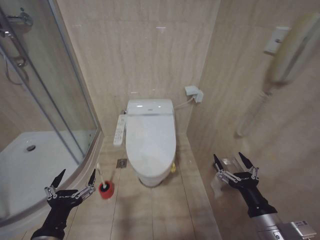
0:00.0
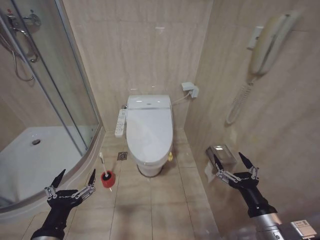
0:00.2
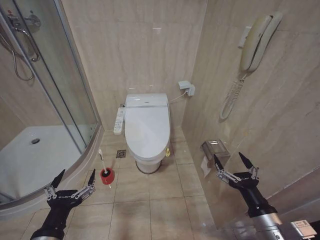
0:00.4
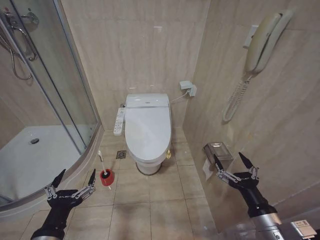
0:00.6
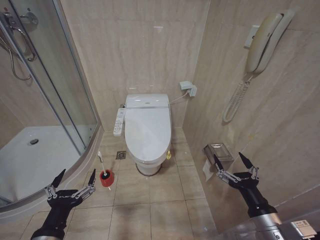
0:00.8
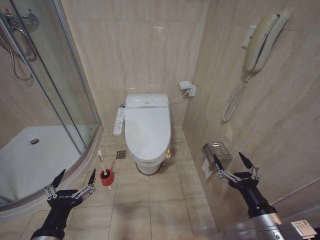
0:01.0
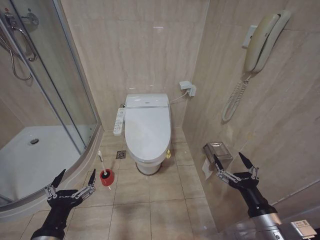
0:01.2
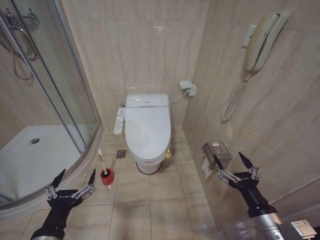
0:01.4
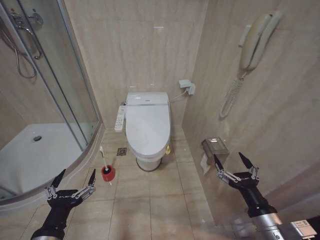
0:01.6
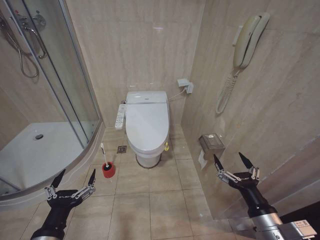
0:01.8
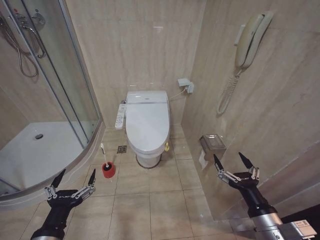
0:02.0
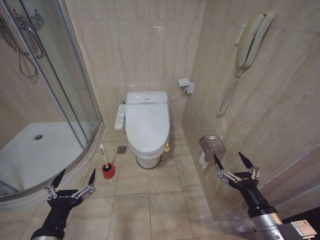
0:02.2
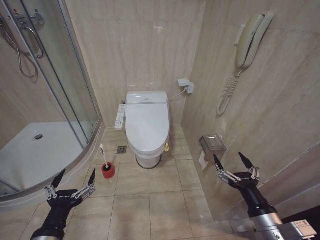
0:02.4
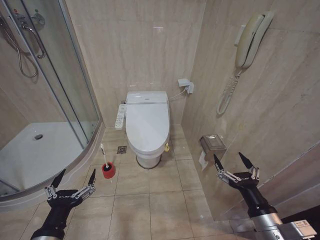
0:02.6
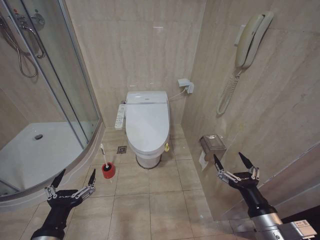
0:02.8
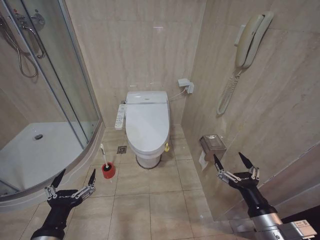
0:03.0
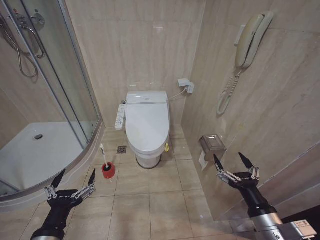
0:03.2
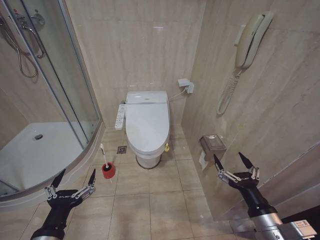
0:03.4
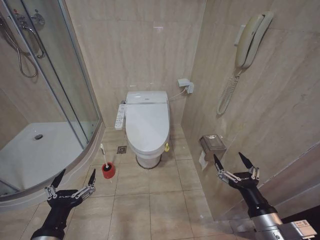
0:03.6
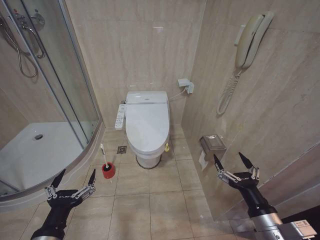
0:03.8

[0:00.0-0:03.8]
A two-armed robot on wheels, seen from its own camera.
Task of the whole recording: Open the toilet lid, clean the toilet bowl with a toilet brush, close the toilet lid, and flush.
0:00.0 to 0:03.8: The two grippers keep their place.

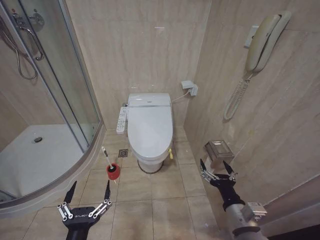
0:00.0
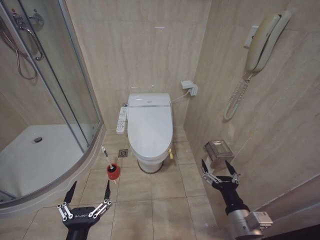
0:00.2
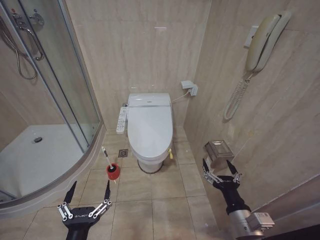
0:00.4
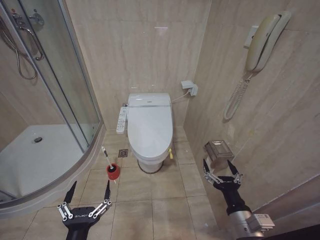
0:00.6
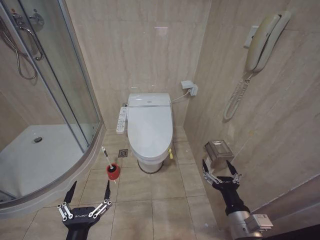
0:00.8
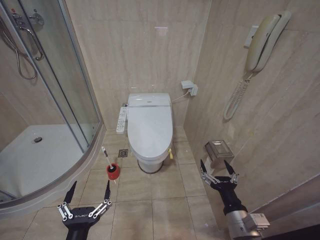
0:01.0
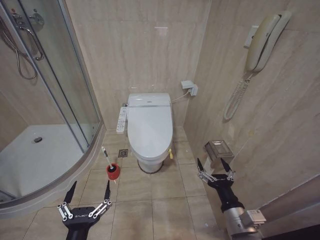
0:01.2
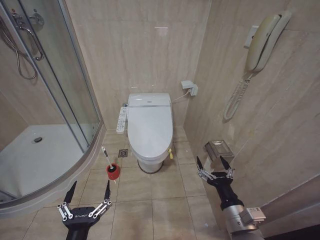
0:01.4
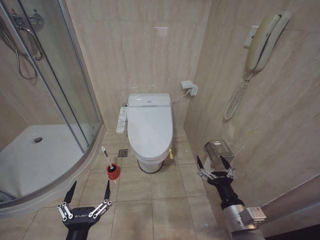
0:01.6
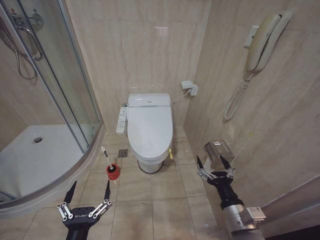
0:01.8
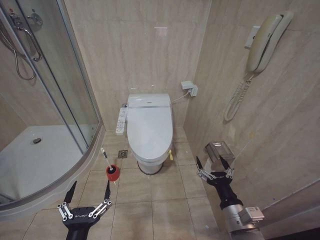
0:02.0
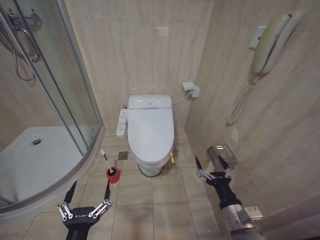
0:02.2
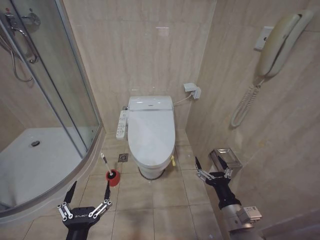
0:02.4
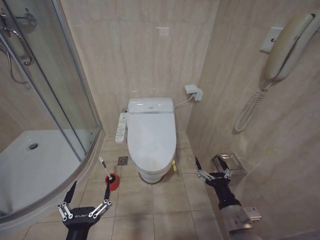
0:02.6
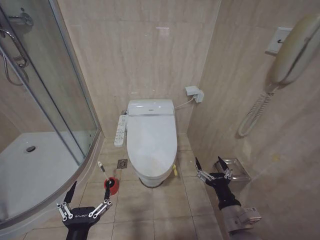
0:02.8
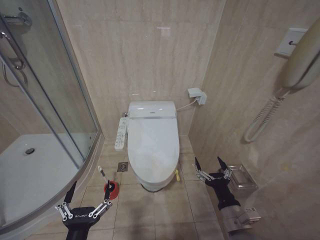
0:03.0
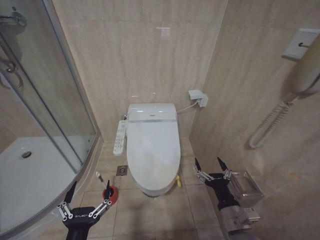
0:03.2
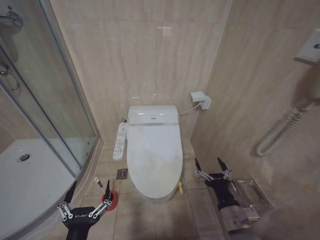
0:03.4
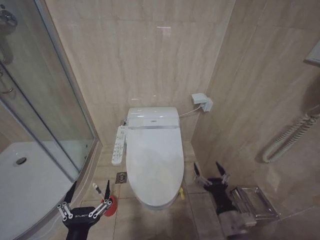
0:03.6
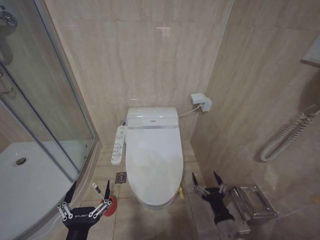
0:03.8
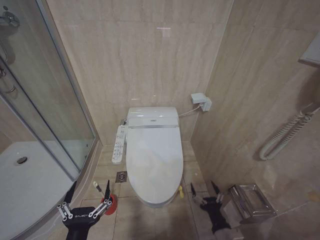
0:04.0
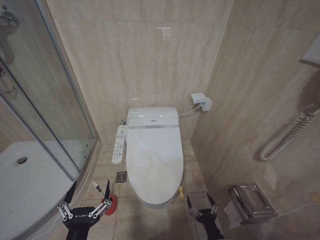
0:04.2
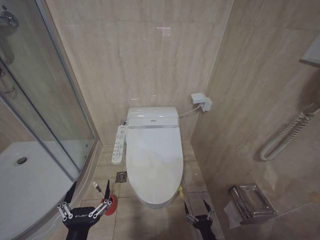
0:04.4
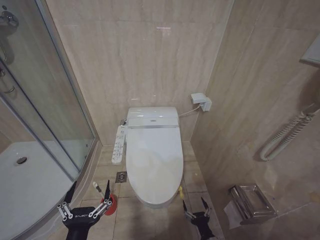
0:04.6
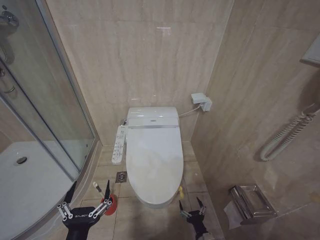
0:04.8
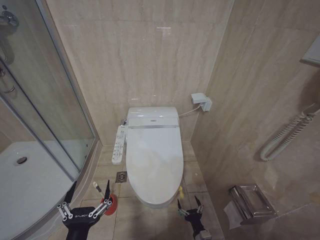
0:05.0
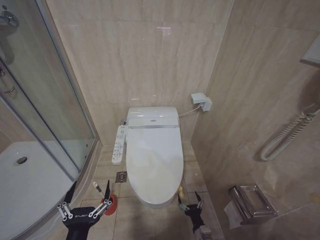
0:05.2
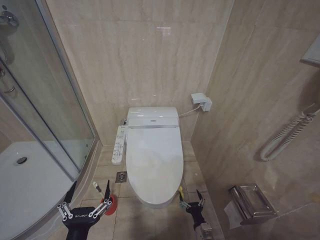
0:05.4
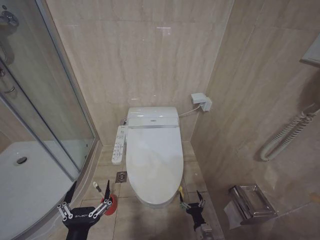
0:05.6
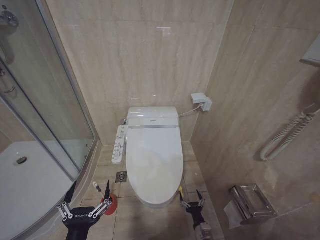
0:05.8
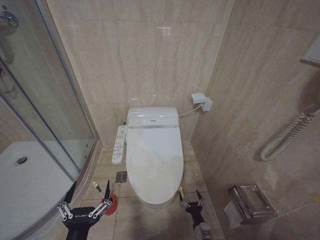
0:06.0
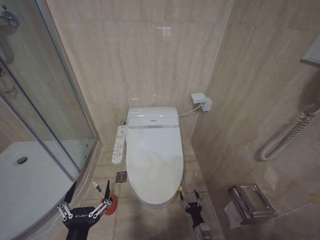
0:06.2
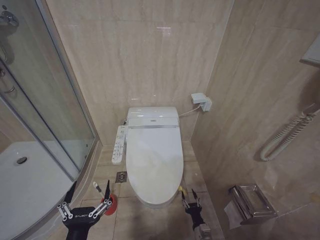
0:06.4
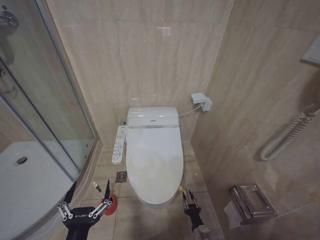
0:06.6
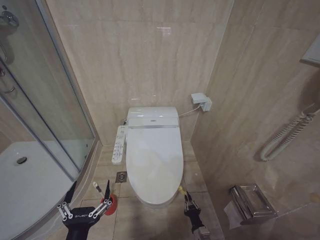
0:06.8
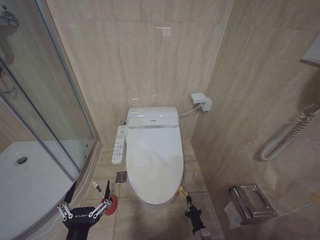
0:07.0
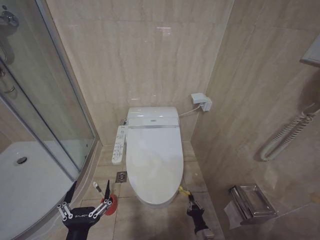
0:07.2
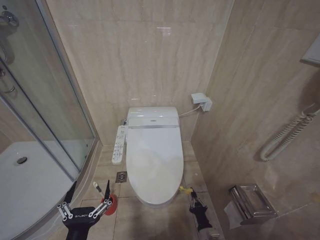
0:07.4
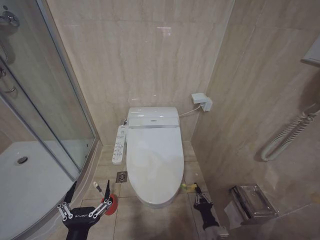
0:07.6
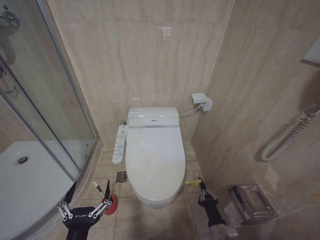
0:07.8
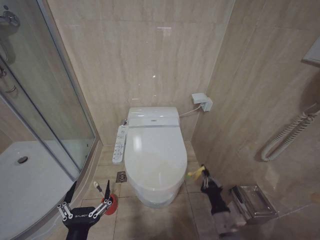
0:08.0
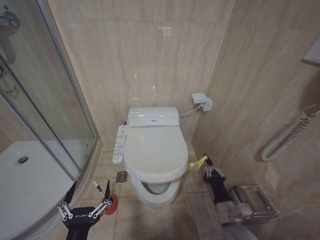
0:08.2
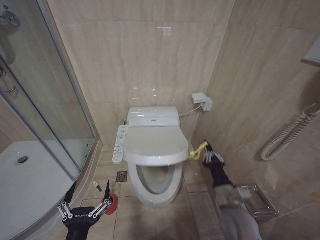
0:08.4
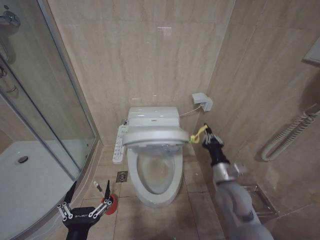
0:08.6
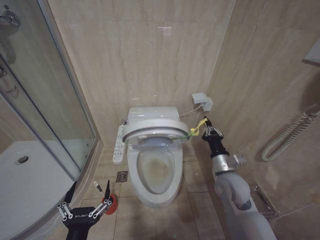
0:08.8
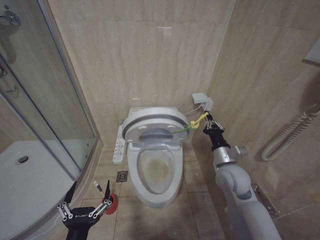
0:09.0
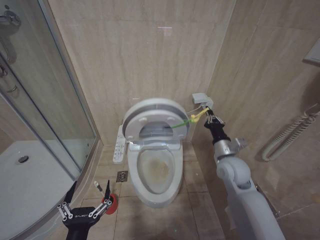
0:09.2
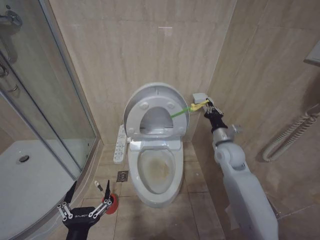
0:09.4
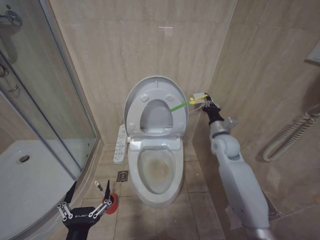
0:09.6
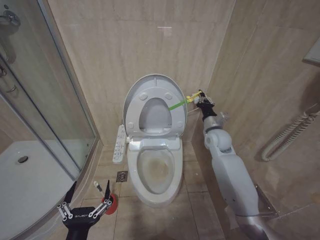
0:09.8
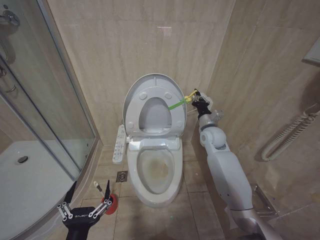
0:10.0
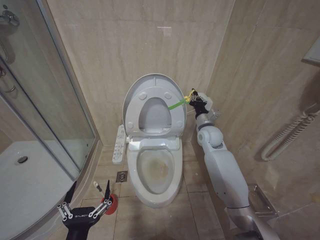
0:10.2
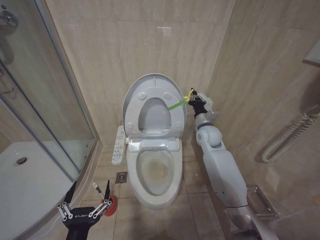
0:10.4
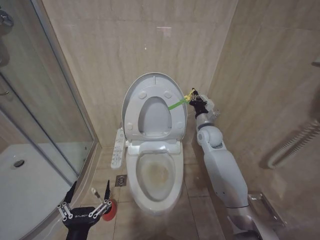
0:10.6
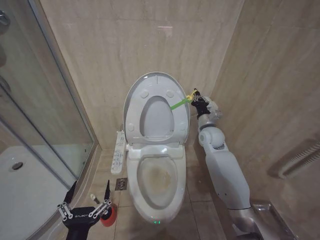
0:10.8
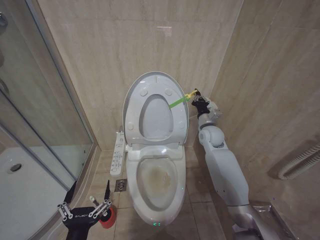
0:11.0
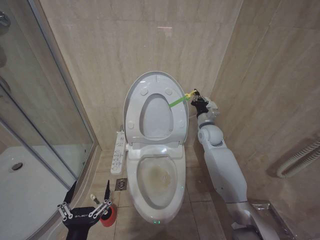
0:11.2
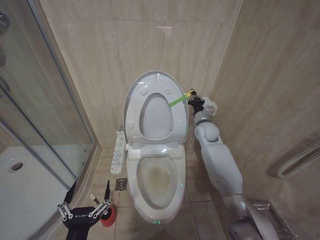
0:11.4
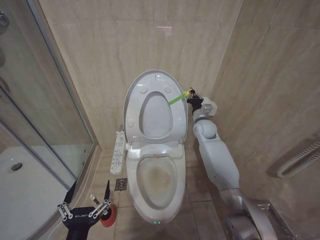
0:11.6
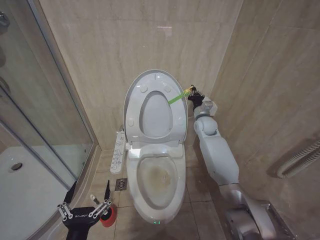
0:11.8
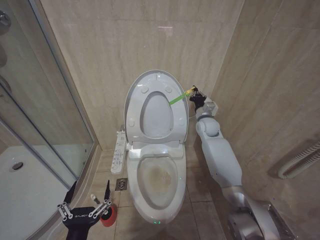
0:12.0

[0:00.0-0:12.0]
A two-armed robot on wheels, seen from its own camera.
Task of the whole recording: Open the toilet lid, clean the toilet bowl with a toilet brush, close the toilet lid, and flush.
0:01.6 to 0:03.0: The grippers make only small movements.
0:03.0 to 0:04.4: The right gripper goes roughly 20 cm downward.
0:04.4 to 0:06.0: The right gripper is displaced forward and downward by approximately 10 cm.
0:06.0 to 0:07.6: The right gripper shifts some 5 cm upward, and closes its fingers.
0:07.6 to 0:09.0: The right gripper travels upward and forward by about 30 cm.
0:09.0 to 0:10.4: The right gripper is displaced forward by roughly 15 cm.
0:10.4 to 0:12.0: The right gripper moves forward, some 5 cm.

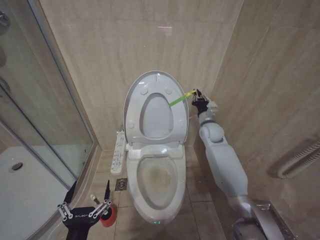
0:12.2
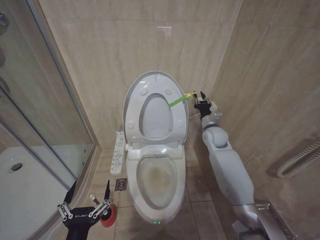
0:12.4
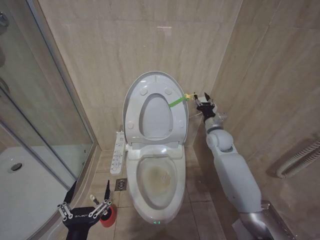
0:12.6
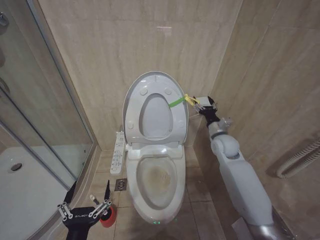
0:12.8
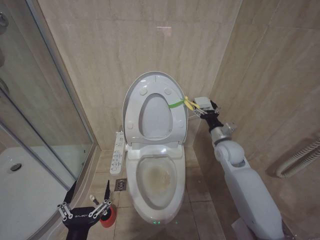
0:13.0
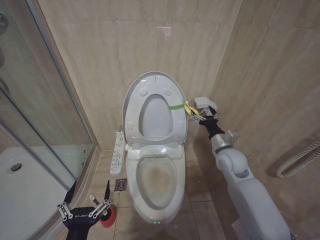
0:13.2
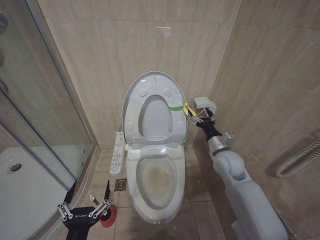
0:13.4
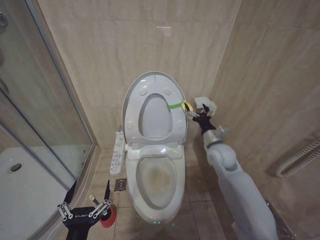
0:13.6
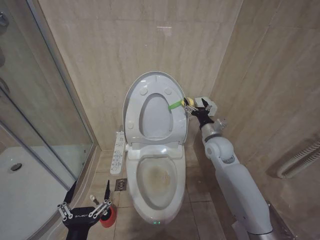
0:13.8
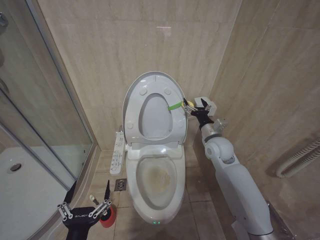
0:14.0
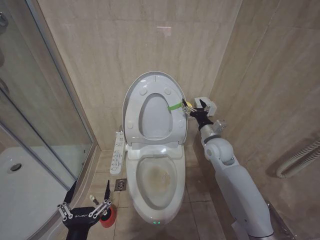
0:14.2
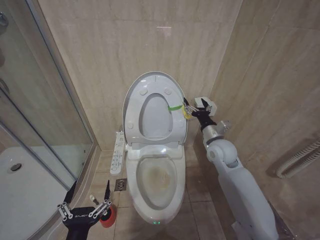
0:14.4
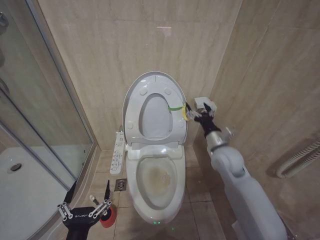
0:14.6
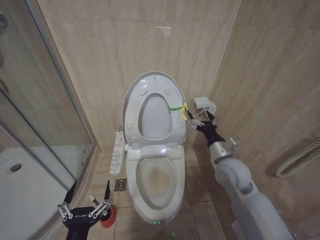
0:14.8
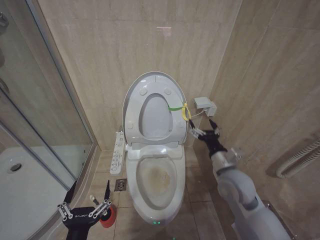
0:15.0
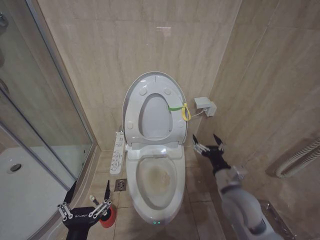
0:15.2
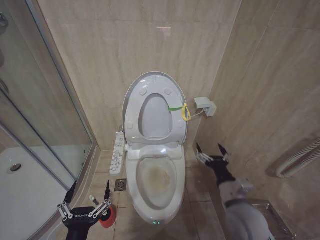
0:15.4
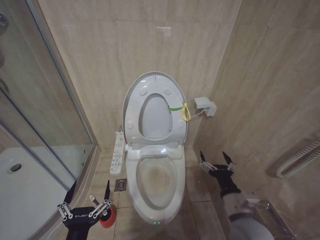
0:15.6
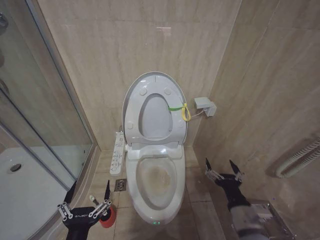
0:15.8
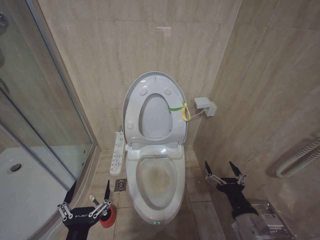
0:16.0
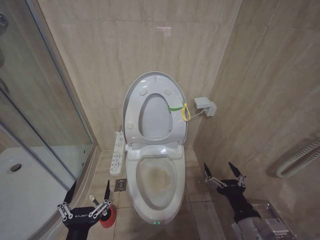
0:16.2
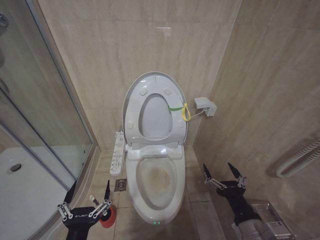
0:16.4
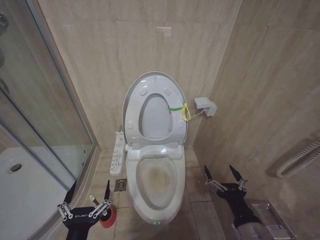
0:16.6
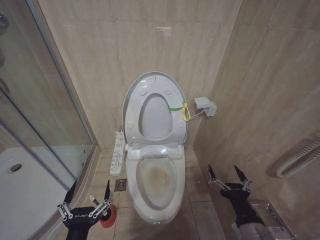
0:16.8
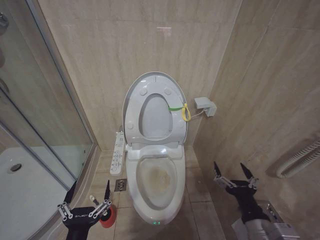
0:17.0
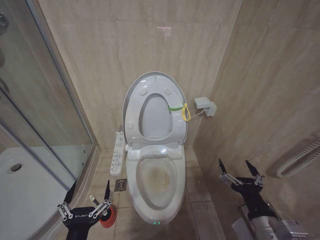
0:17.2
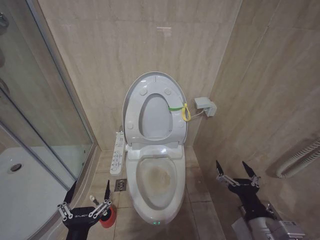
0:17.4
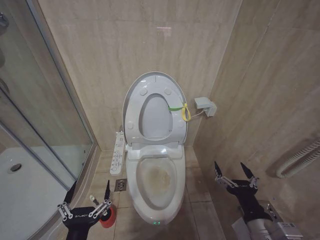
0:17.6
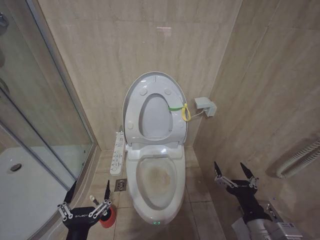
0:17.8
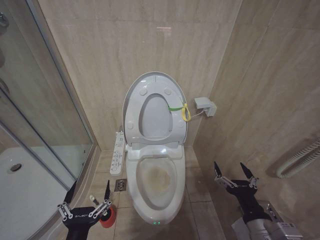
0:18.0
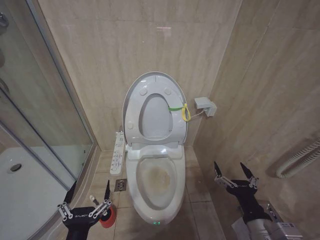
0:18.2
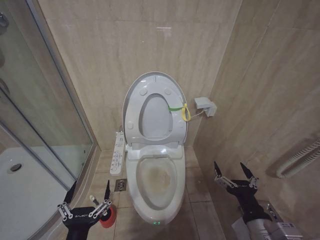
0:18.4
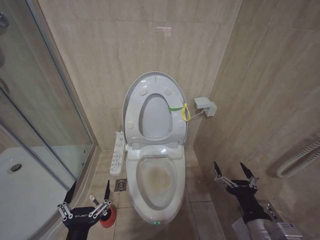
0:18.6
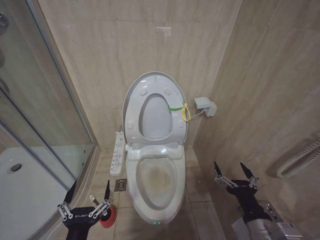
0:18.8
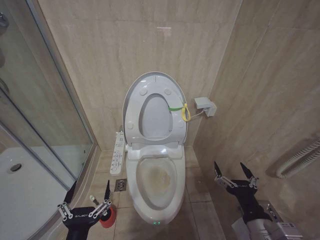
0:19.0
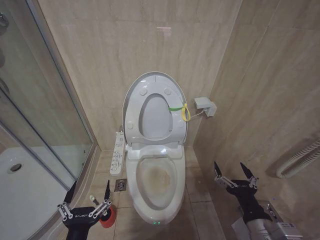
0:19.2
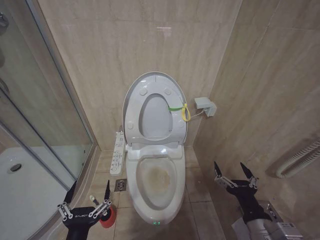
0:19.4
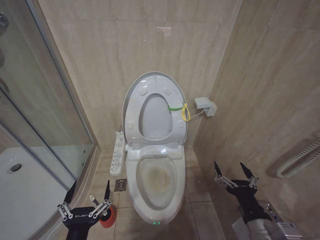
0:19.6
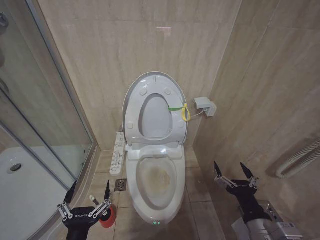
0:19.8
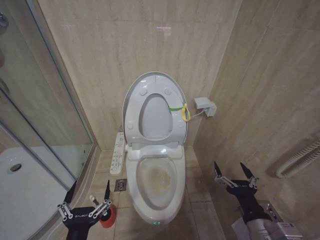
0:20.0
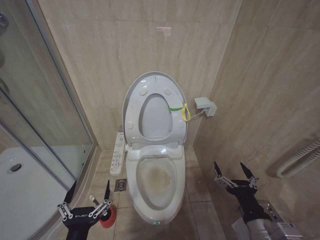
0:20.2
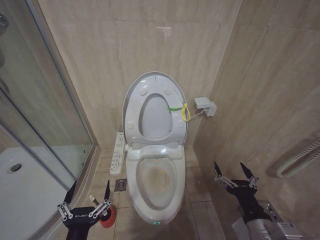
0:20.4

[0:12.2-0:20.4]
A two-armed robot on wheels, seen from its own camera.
Task of the whole recording: Open the toilet lid, clean the toilet bowl with a toilet brush, close the toilet lid, and flush.
0:12.2 to 0:13.8: The right gripper goes some 10 cm backward, and opens its fingers.
0:13.8 to 0:15.4: The right gripper shifts roughly 20 cm backward.
0:15.4 to 0:17.2: The right gripper heads backward, covering roughly 10 cm.
0:17.2 to 0:20.4: Both grippers stay put.
